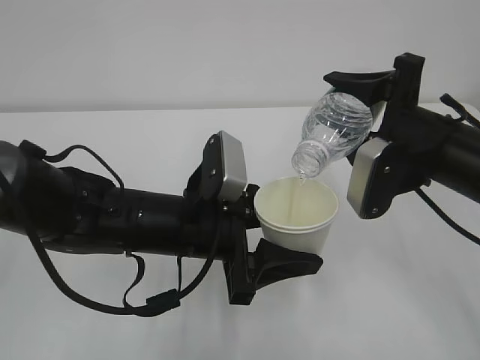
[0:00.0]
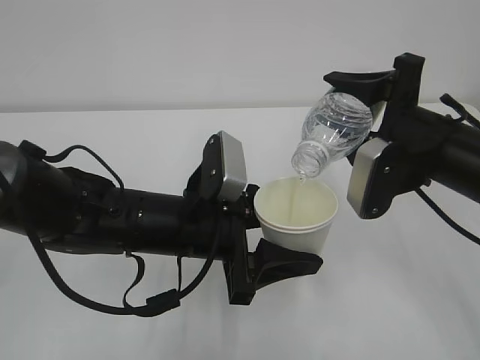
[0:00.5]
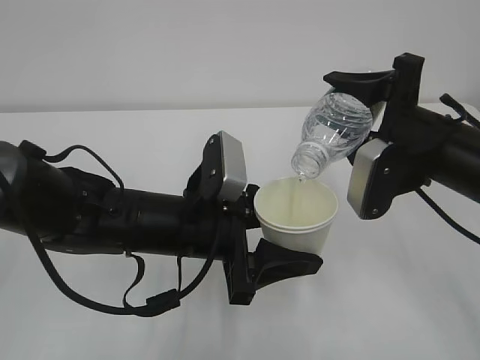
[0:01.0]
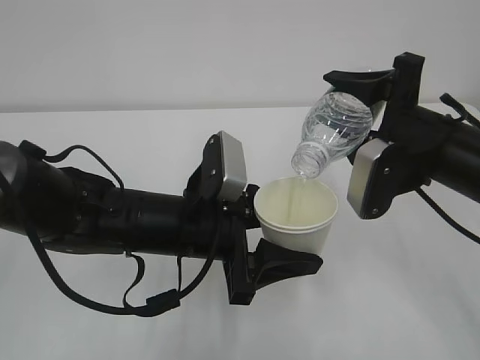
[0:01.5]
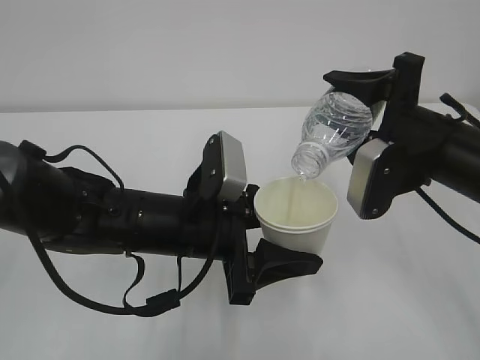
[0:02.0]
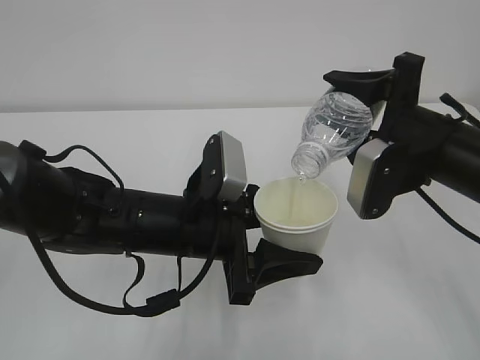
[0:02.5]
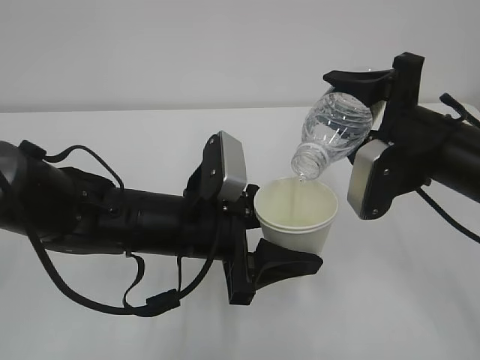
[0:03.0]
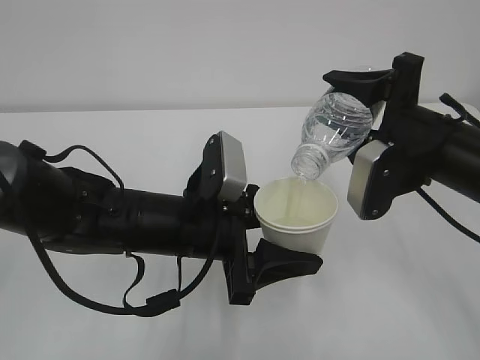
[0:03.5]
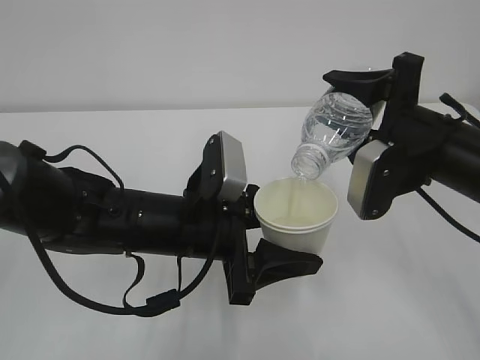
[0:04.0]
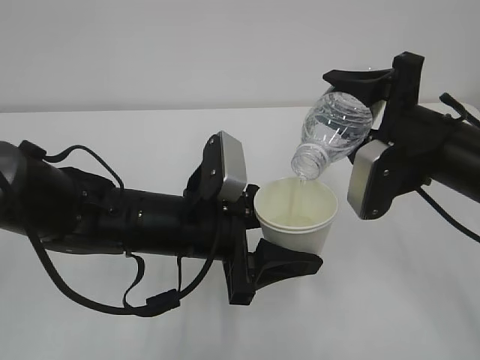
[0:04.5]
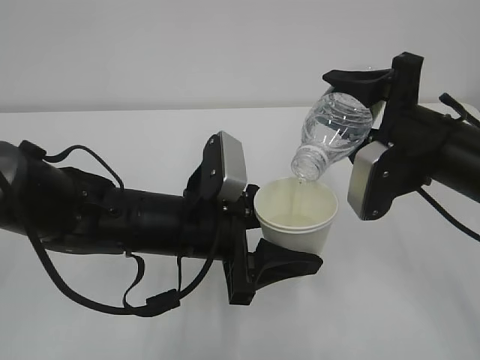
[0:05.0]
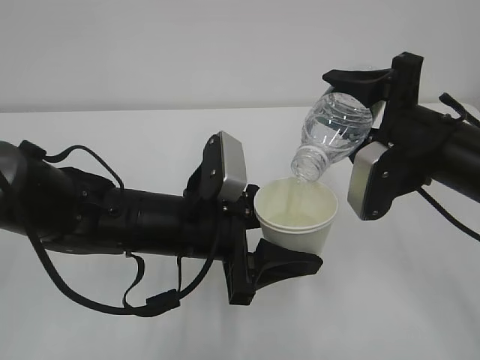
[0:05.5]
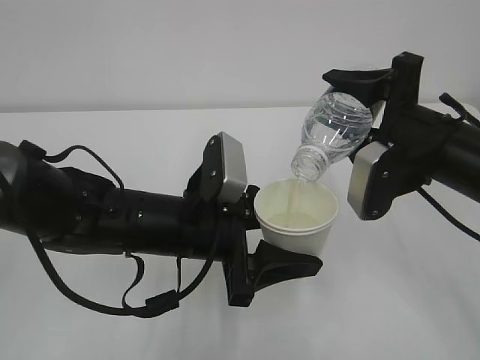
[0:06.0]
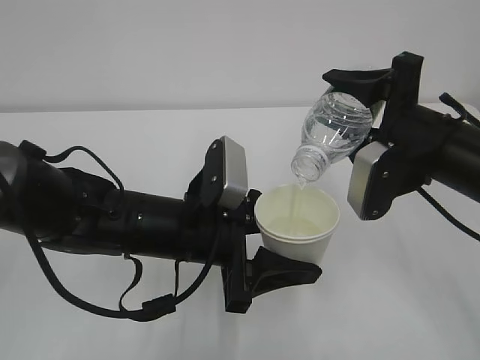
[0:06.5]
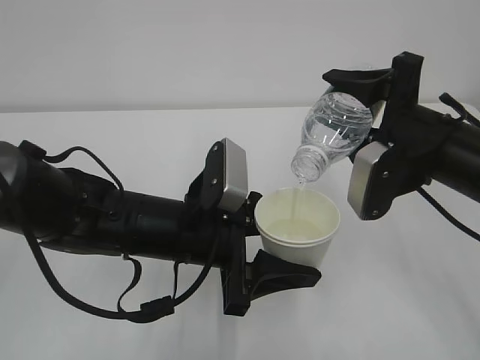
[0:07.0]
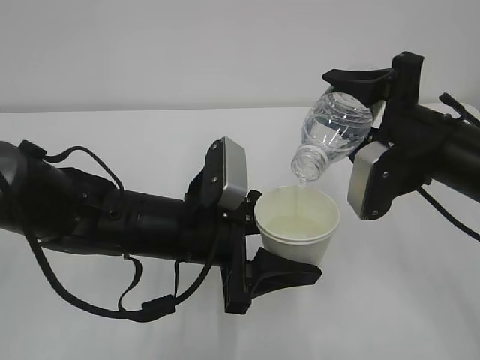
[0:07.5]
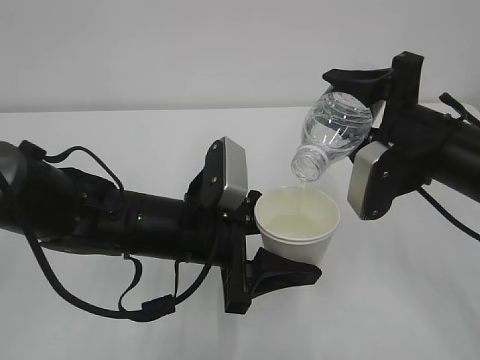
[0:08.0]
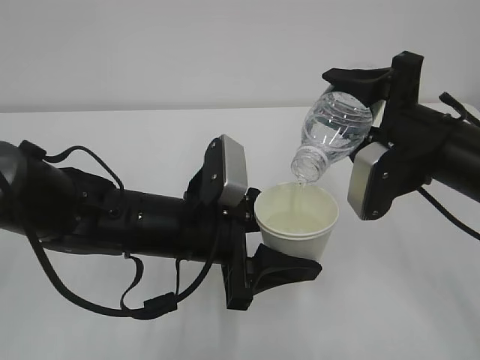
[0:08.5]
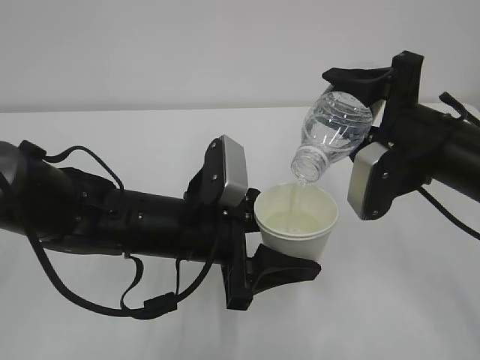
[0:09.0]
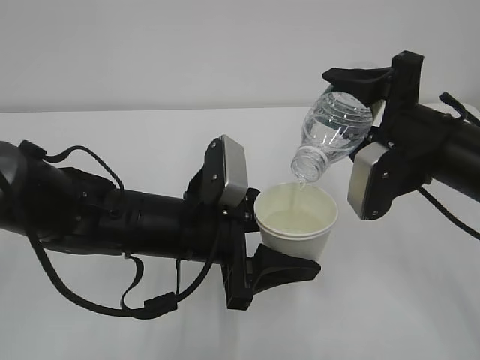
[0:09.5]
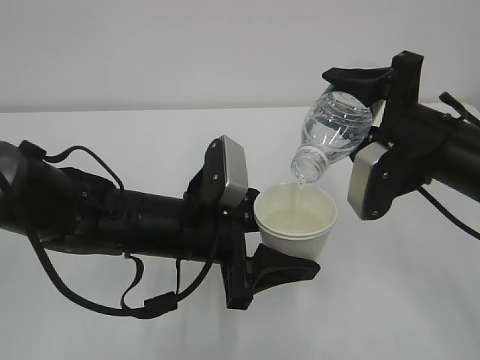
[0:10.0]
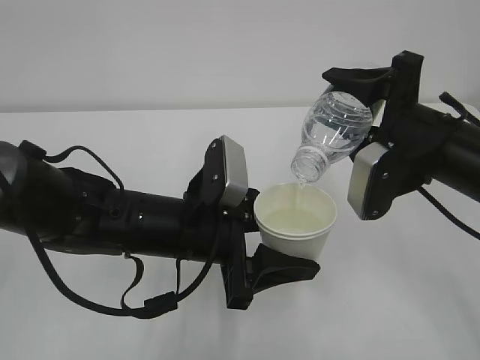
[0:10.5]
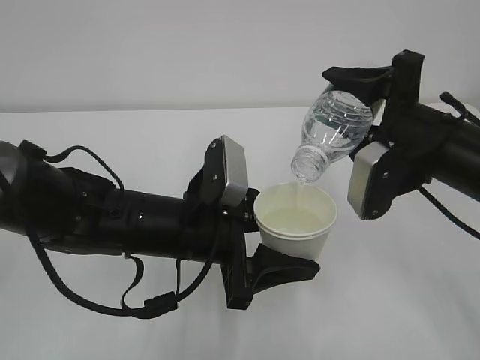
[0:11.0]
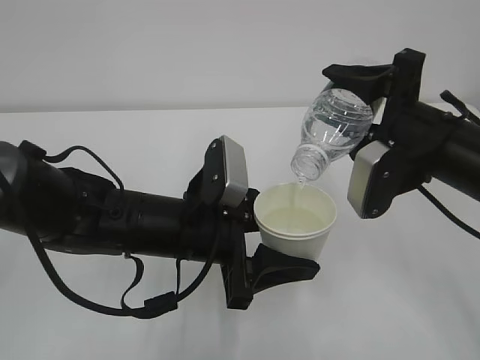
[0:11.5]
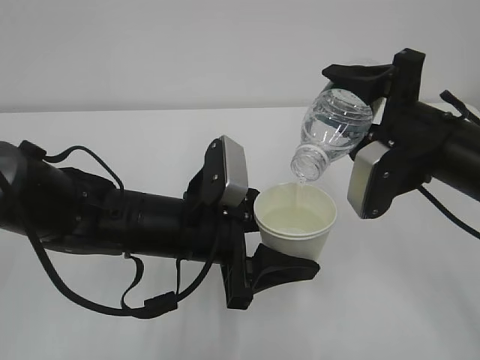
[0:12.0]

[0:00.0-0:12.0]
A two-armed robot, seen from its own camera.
0:00.0 to 0:08.0: Both grippers stay about where they are.
0:08.0 to 0:12.0: Both grippers stay put.

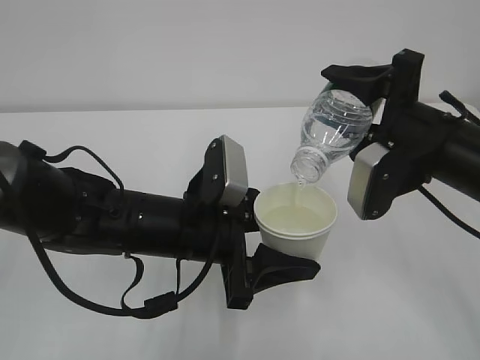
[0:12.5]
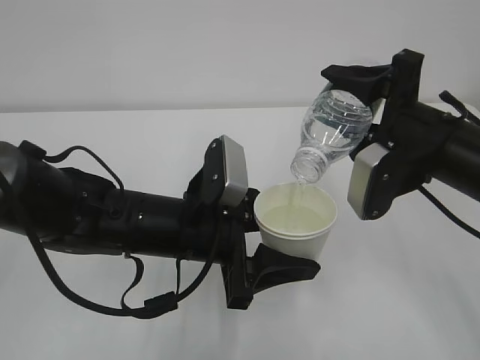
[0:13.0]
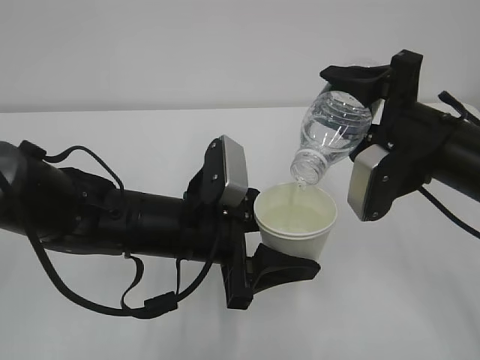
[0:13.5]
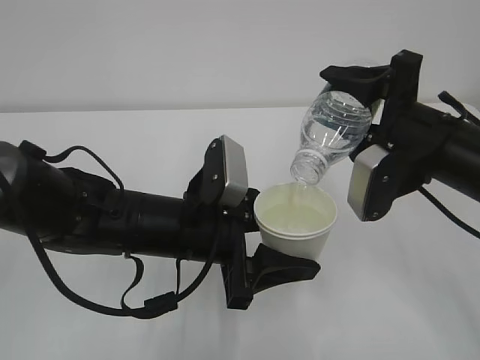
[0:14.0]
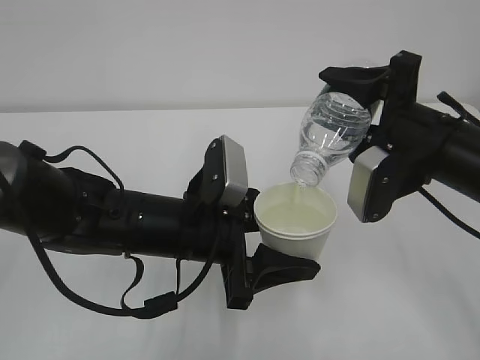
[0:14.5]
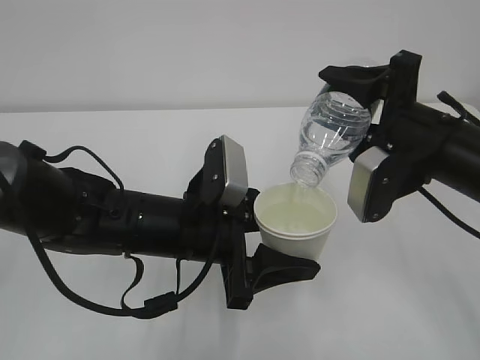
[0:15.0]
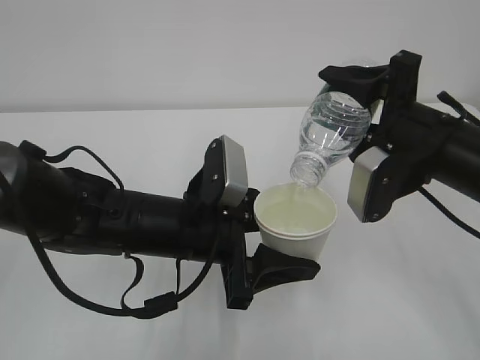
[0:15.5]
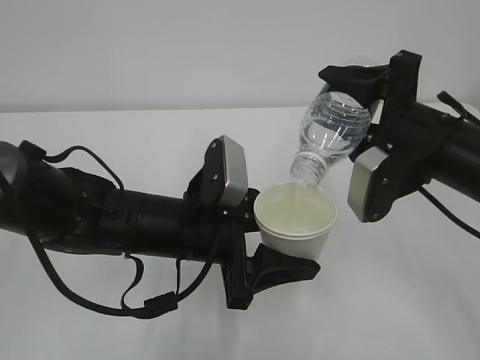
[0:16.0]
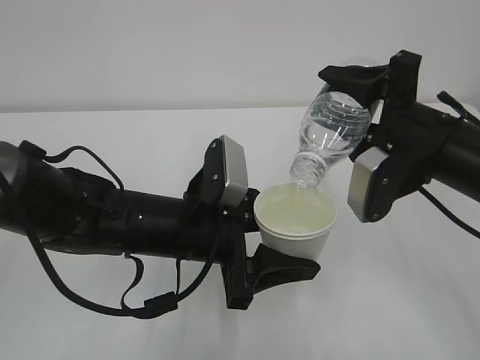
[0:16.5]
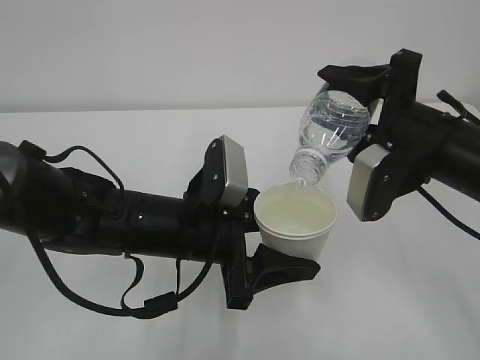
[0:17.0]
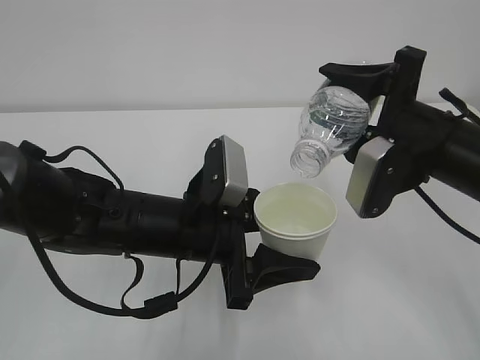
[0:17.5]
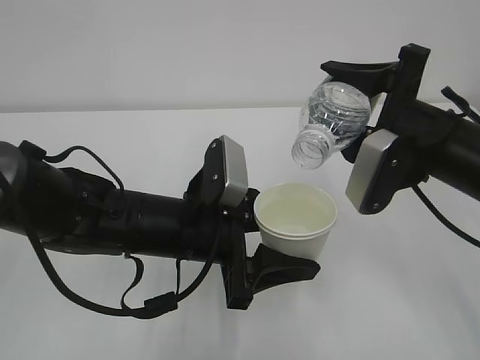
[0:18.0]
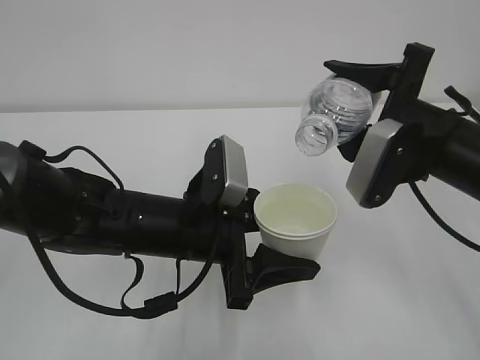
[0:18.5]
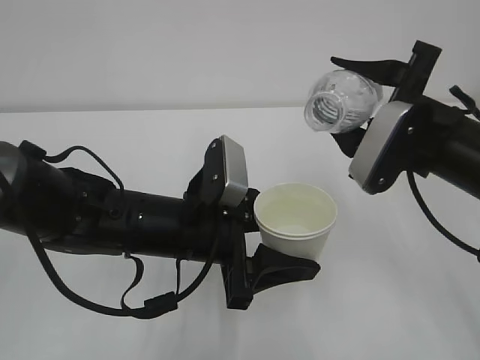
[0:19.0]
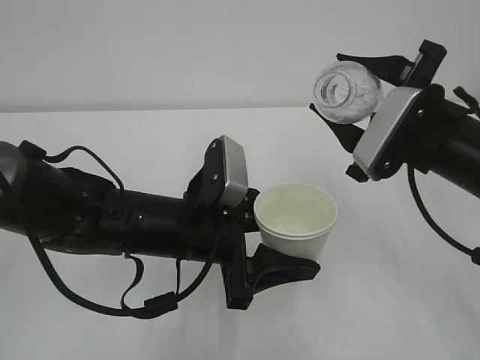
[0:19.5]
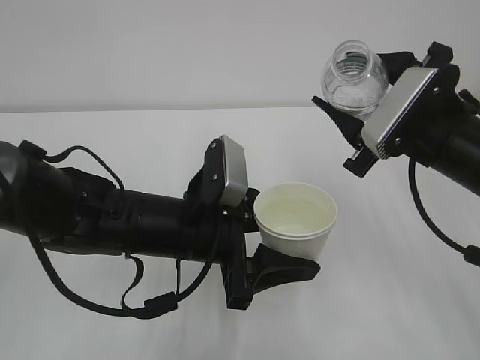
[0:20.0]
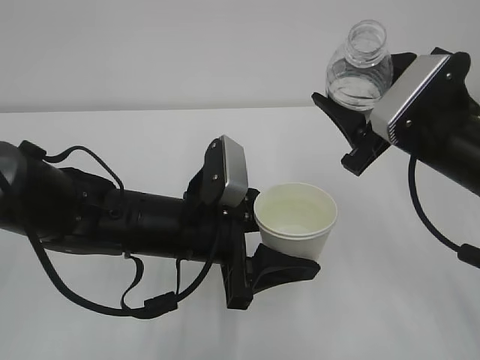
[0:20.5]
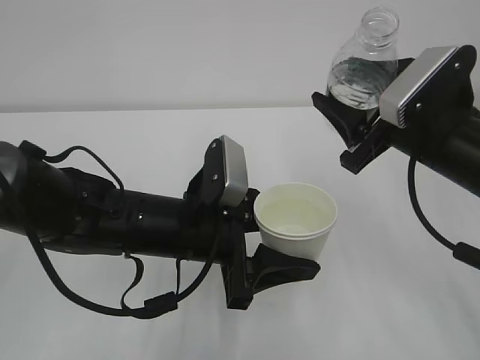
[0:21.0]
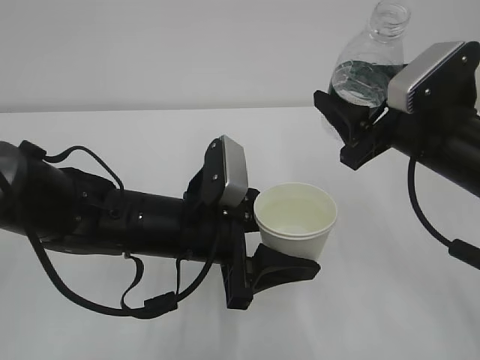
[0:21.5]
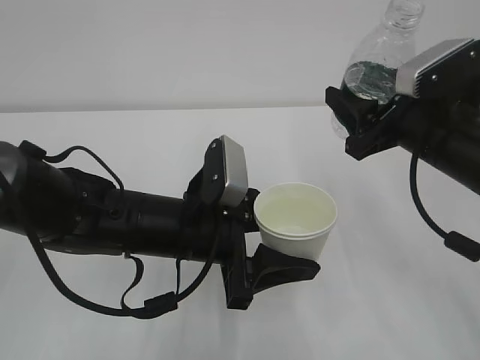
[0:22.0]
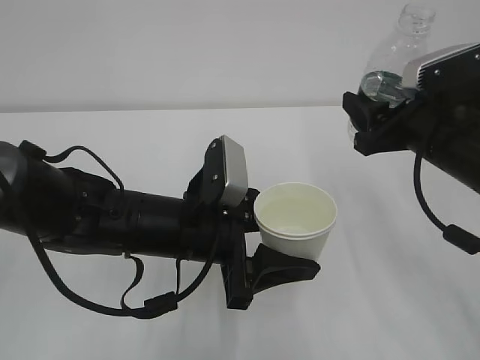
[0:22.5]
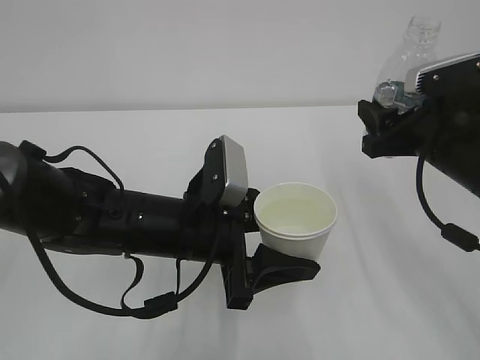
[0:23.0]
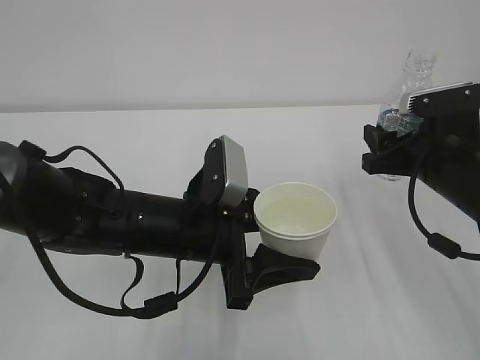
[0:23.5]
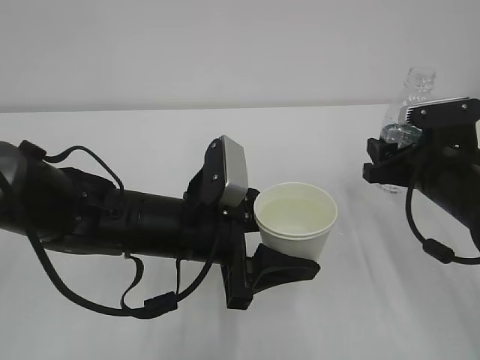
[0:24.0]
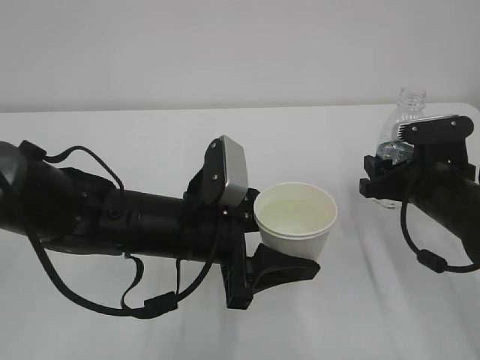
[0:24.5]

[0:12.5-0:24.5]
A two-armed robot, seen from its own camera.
0:12.5 to 0:16.5: The two grippers keep their place.
0:16.5 to 0:18.5: The grippers make only small movements.
0:22.5 to 0:24.5: The right gripper heads downward, covering some 10 cm.

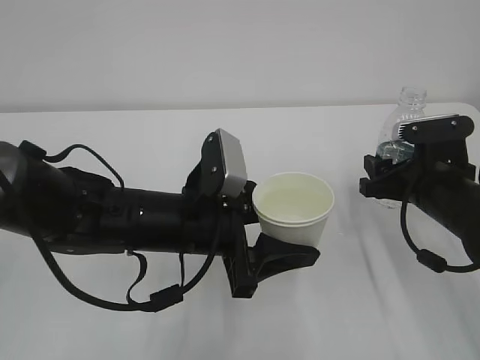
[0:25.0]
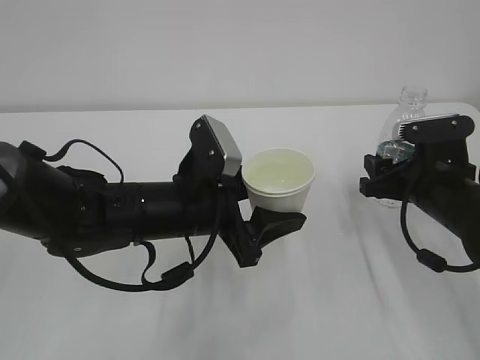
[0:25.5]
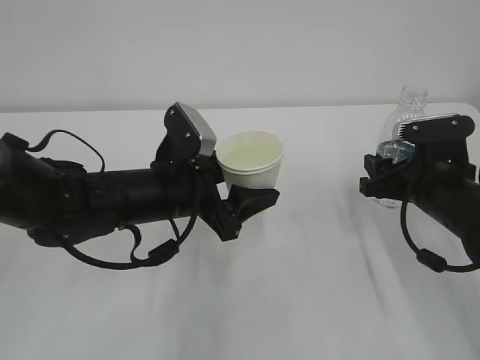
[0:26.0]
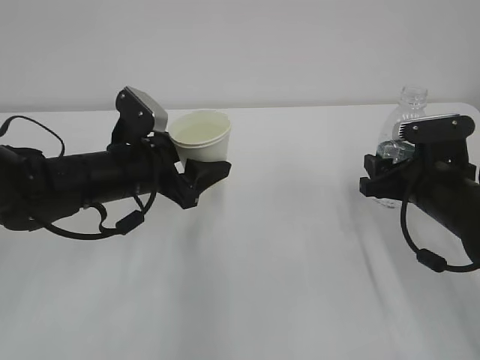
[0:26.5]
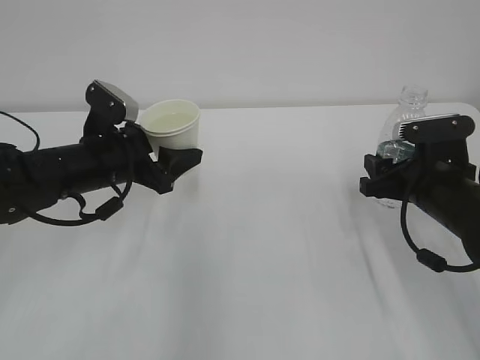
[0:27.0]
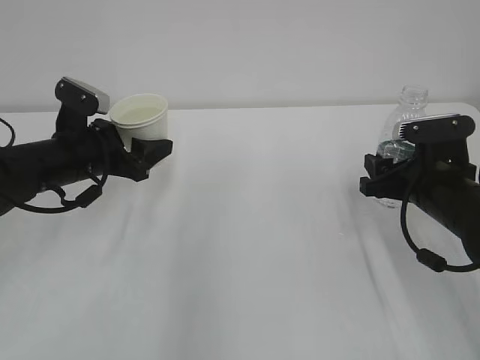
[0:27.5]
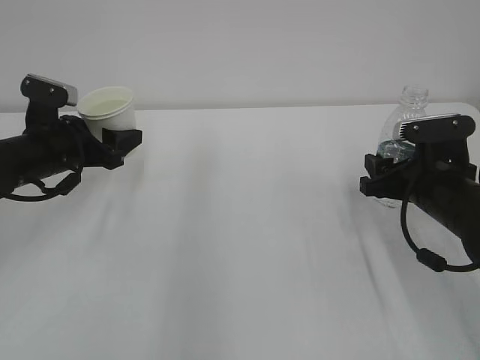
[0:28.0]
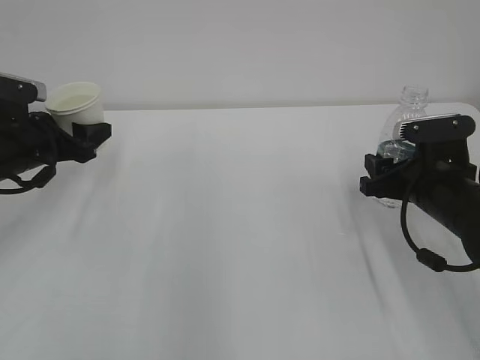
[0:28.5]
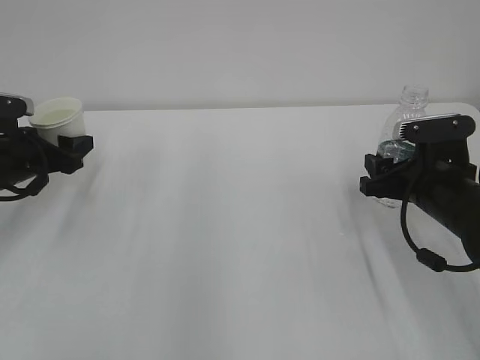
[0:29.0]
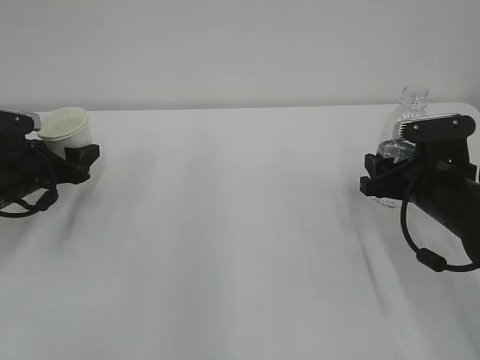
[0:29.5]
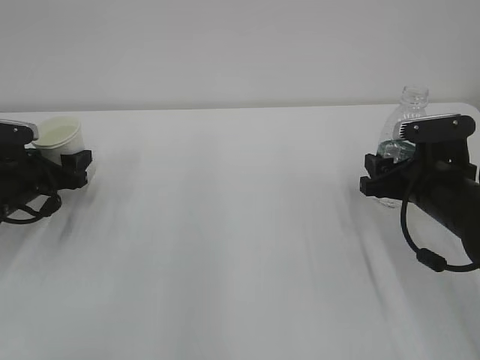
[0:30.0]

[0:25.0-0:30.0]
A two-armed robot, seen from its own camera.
0:25.0 to 0:27.5: The left gripper is displaced to the left and forward by roughly 20 cm.
0:27.5 to 0:30.0: The left gripper travels to the left and downward by roughly 15 cm.
